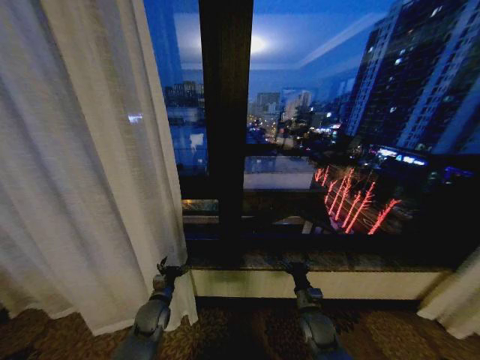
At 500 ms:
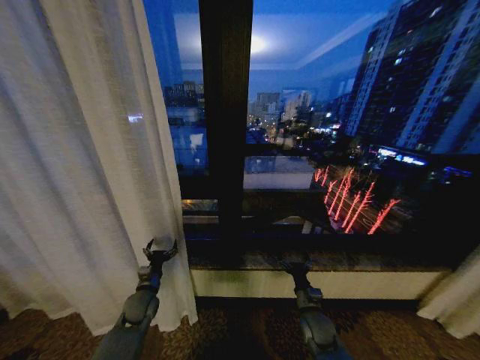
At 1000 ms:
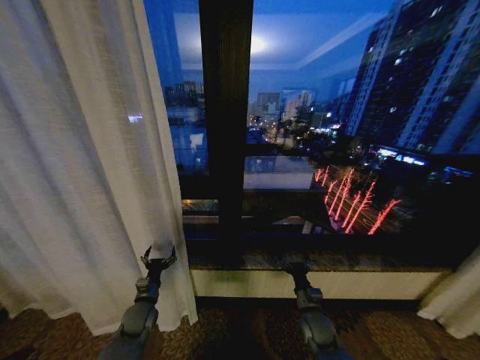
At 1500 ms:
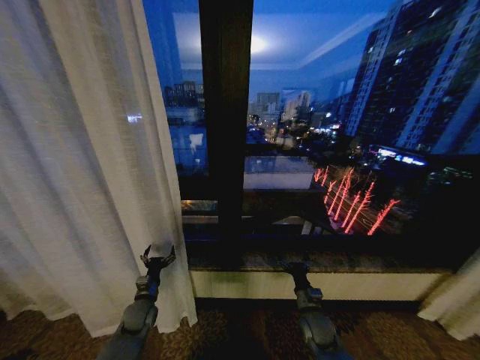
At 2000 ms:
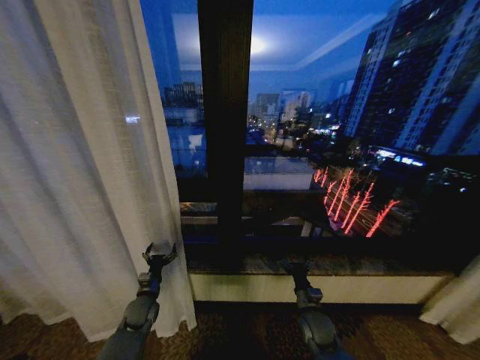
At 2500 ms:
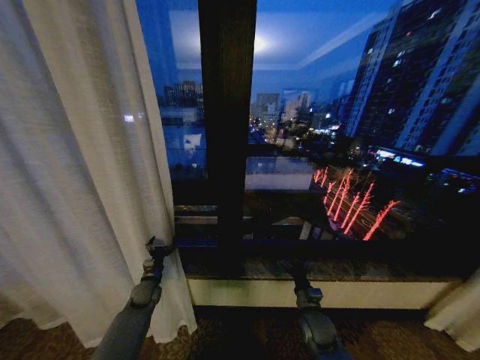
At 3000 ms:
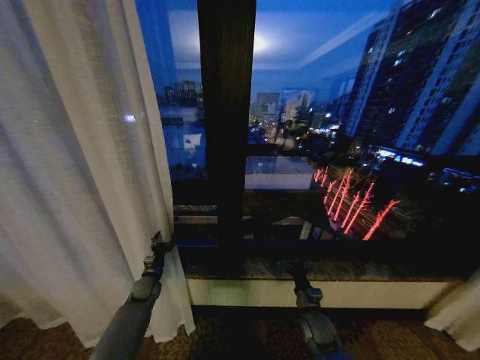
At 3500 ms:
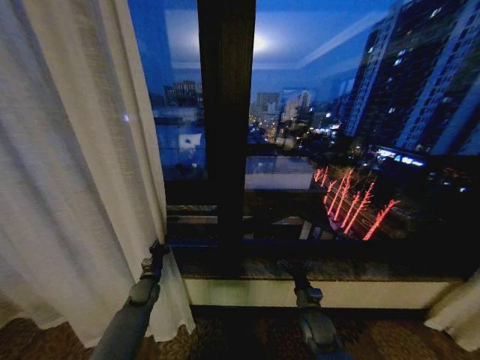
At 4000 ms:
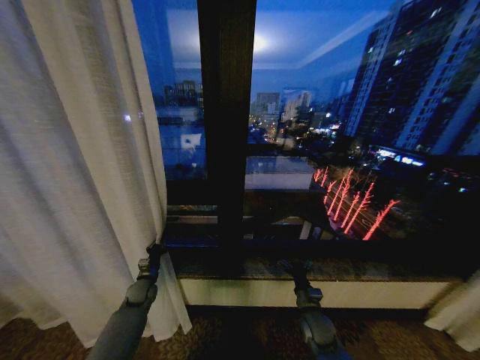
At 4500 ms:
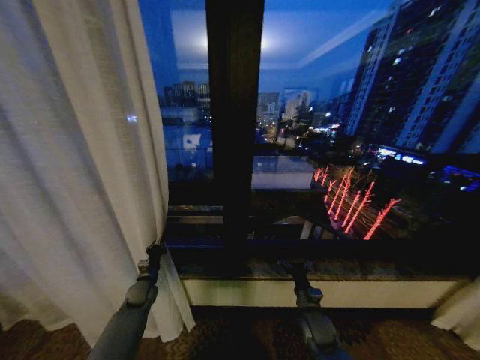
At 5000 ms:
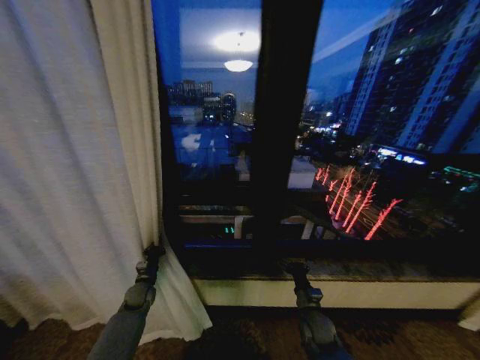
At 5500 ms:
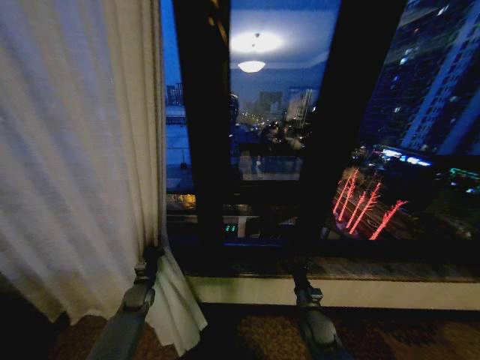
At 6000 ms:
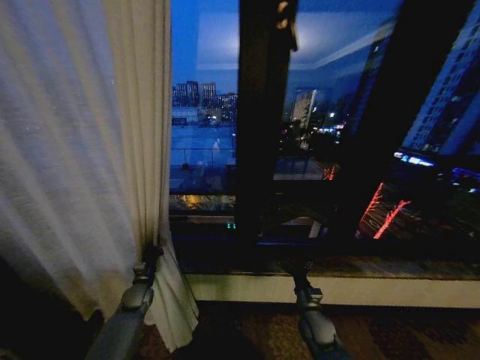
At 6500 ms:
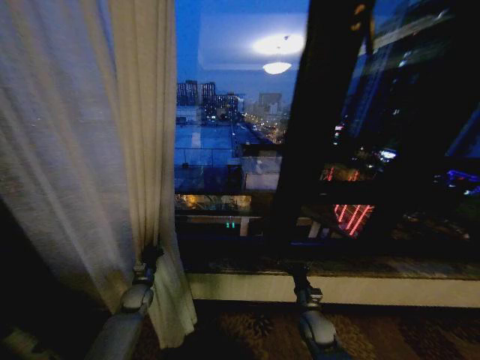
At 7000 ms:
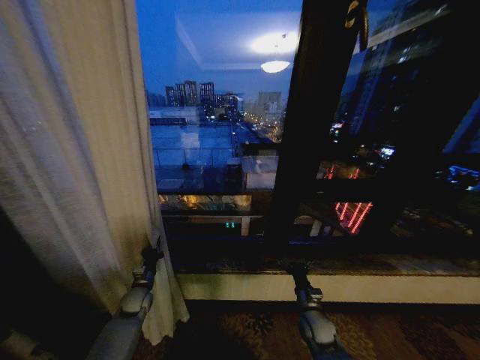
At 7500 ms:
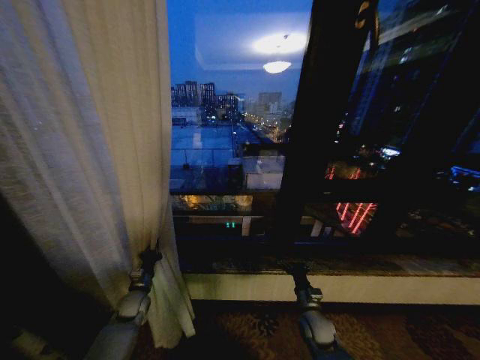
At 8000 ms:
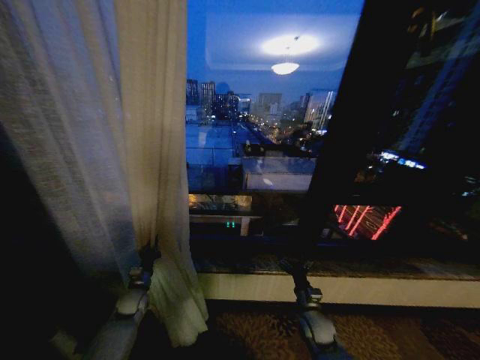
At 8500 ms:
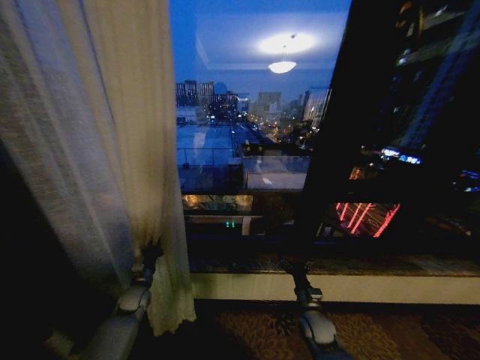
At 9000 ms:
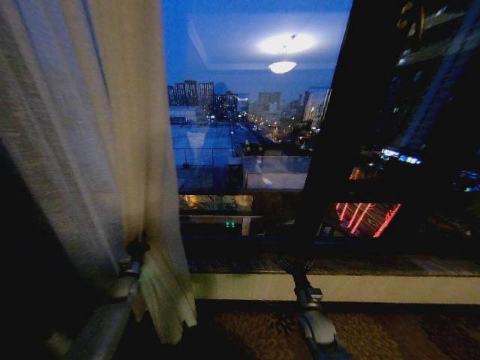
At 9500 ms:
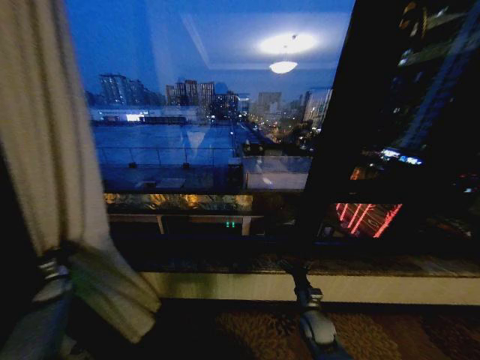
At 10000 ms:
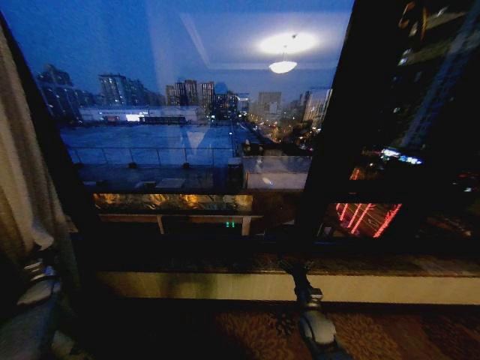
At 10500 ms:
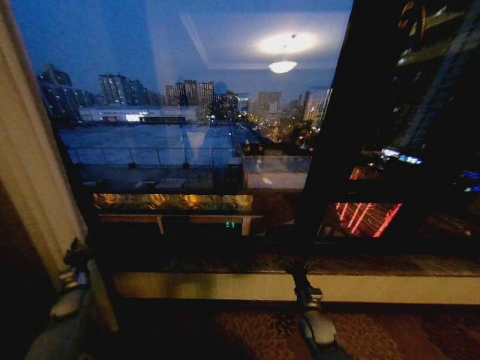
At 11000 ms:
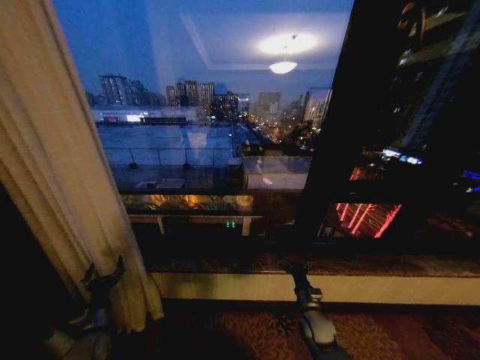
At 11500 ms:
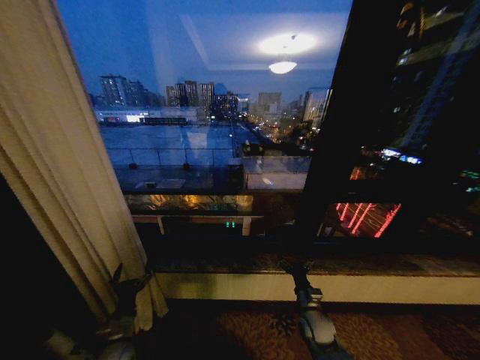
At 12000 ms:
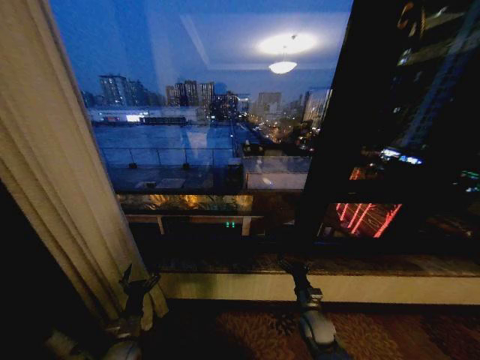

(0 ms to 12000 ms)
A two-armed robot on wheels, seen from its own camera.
Task of the whole recording: Open the curtains by pulling them apart, changing their state from closed to fully open.
0 ms - 2000 ms: There are only small adjustments of the grippers.
2000 ms - 4000 ms: The left gripper shifts about 5 cm forward, and closes its fingers.
8000 ms - 10000 ms: The left gripper moves to the left, some 30 cm.
10000 ms - 12000 ms: The left gripper heads to the right and backward, covering roughly 35 cm, and opens.

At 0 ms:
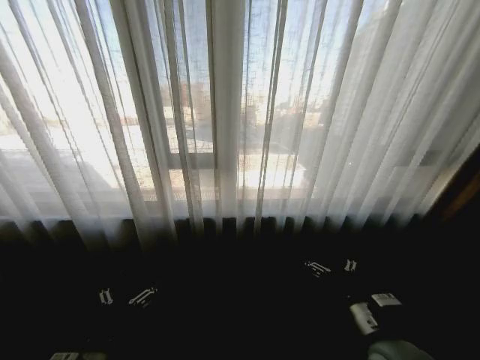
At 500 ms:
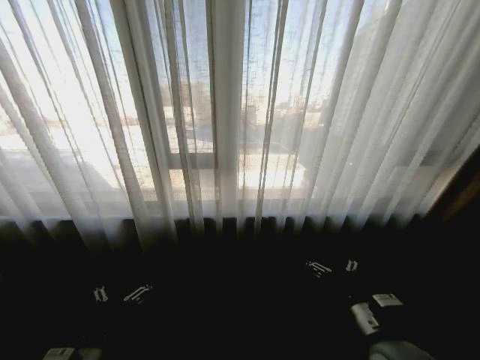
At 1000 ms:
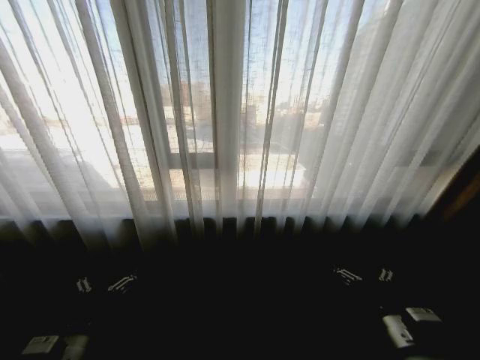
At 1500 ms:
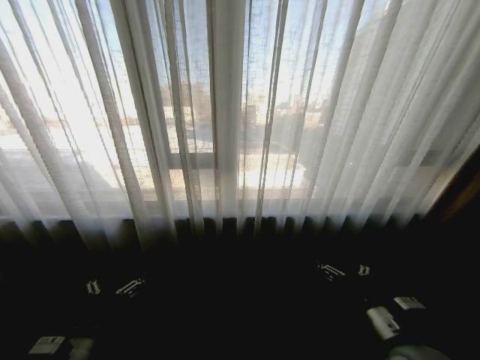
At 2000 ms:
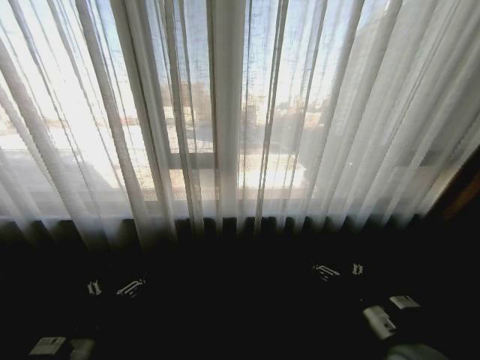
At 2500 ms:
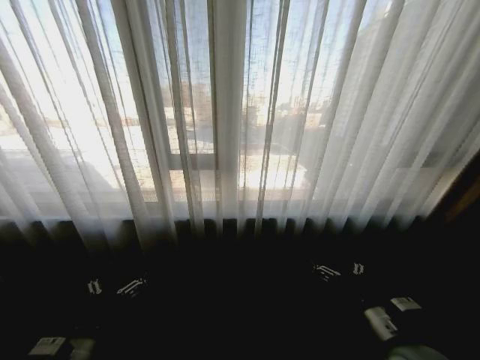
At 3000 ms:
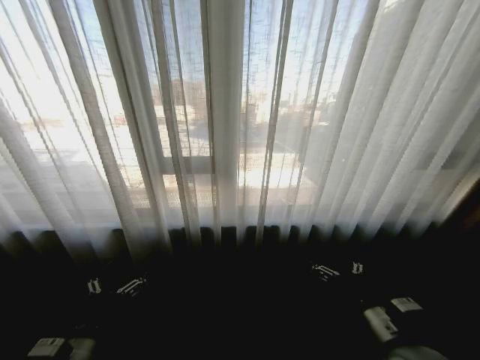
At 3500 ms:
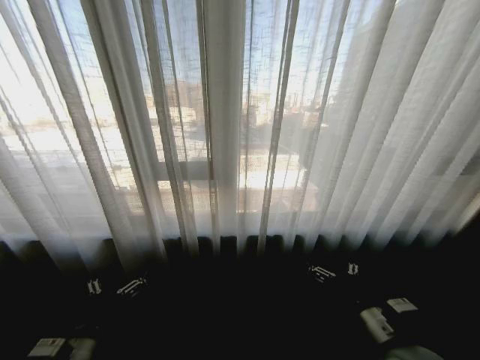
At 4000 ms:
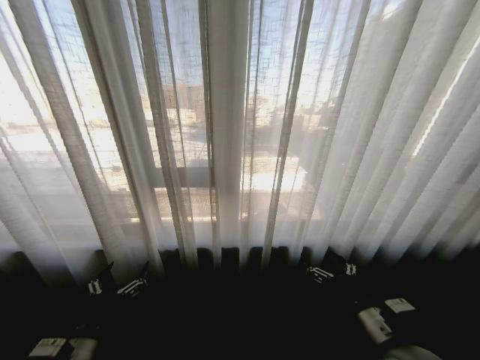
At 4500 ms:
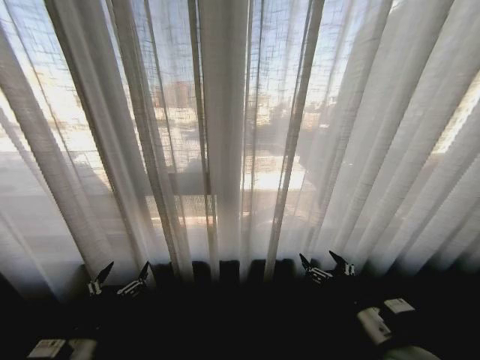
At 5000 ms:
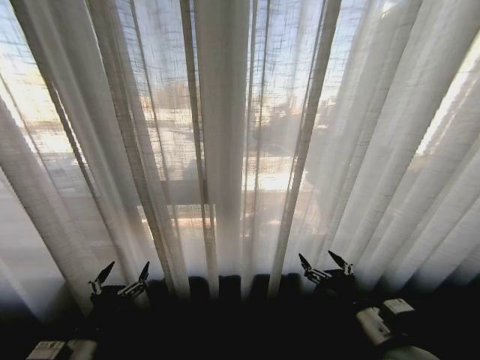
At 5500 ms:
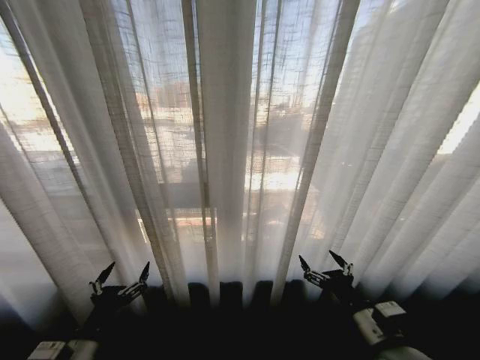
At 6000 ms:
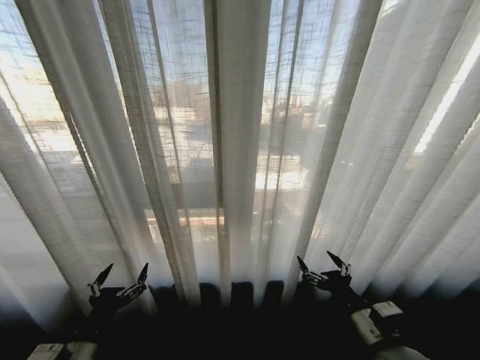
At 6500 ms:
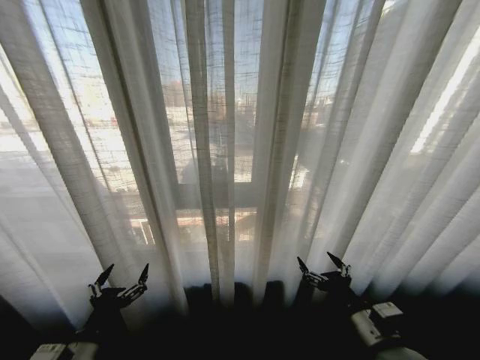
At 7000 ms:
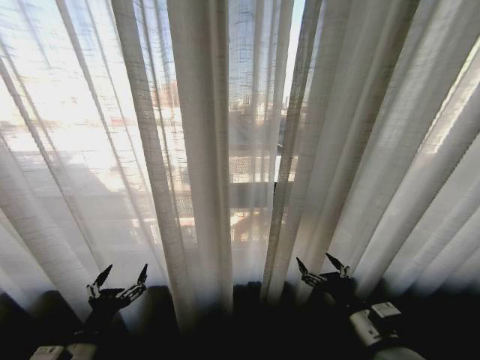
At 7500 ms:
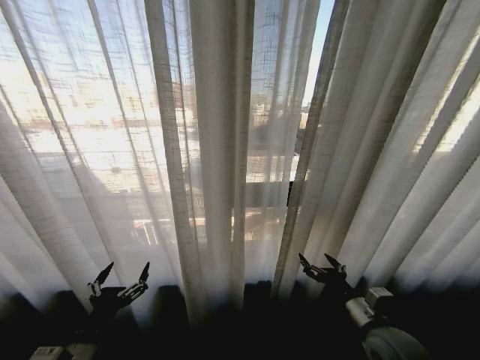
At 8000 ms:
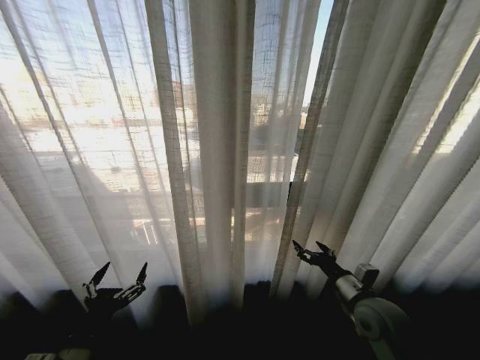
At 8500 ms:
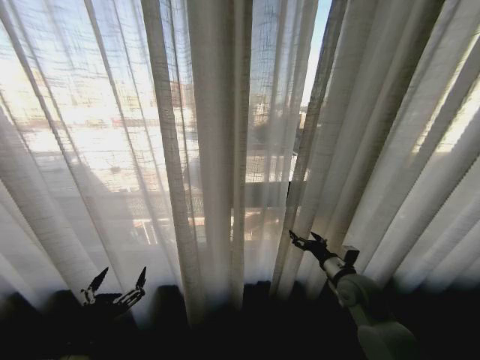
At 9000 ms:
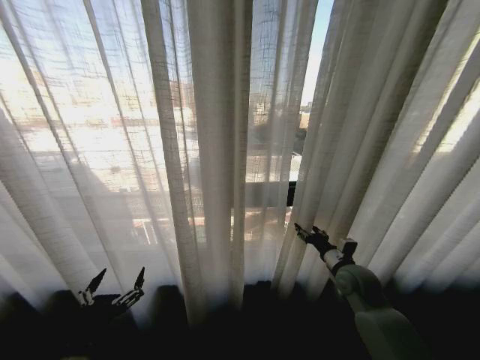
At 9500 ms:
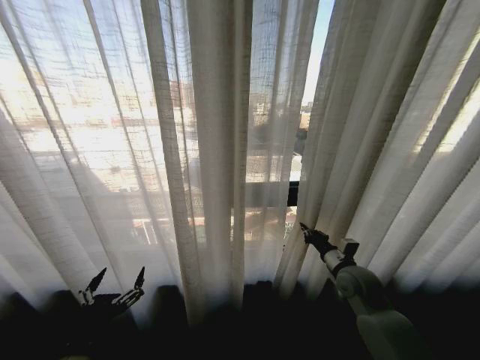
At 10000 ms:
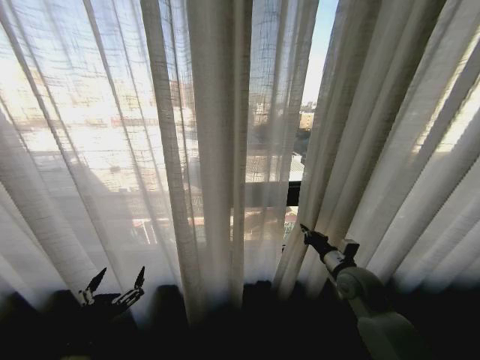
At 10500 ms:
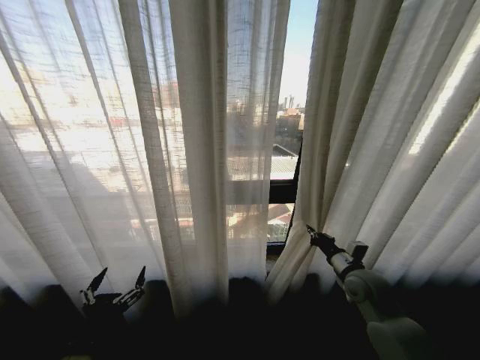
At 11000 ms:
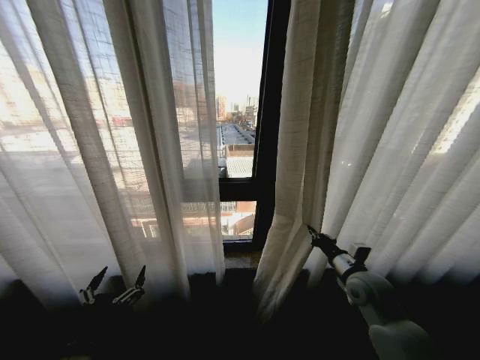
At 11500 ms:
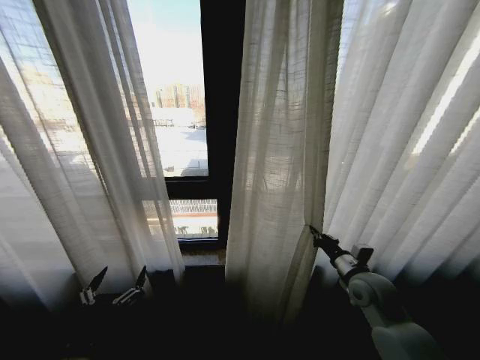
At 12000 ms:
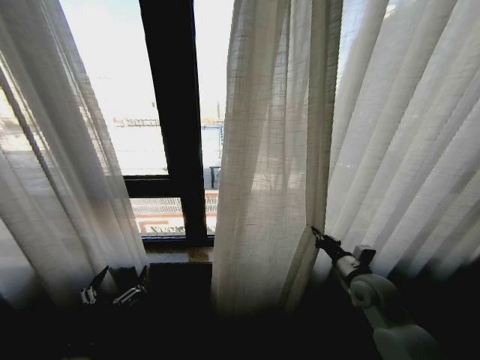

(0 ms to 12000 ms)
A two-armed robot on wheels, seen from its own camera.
Task of the whole recording: Open the curtains by pulling them apart, changing their state from closed to fully open.
6000 ms - 8000 ms: The right gripper is displaced forward by some 10 cm.
8000 ms - 10000 ms: The right gripper is displaced forward by roughly 10 cm, and closes up.

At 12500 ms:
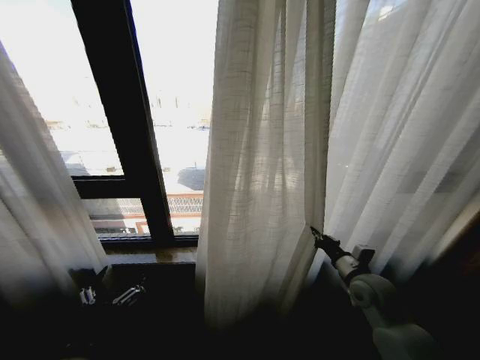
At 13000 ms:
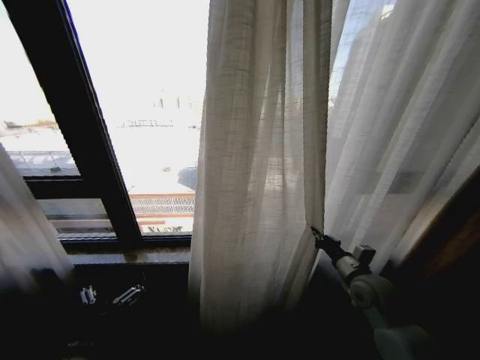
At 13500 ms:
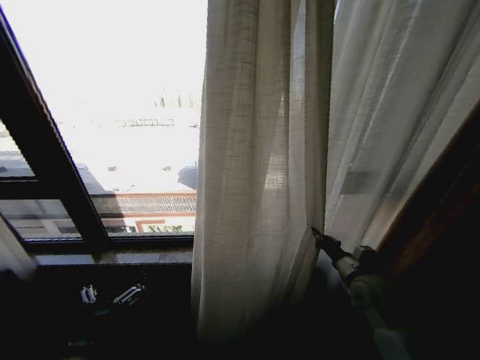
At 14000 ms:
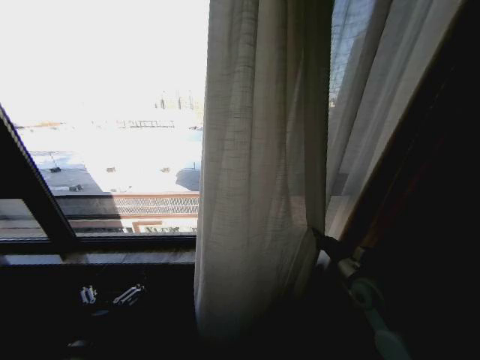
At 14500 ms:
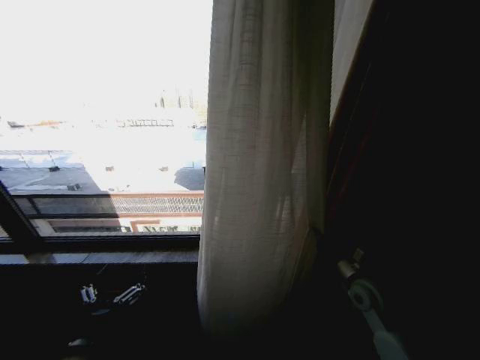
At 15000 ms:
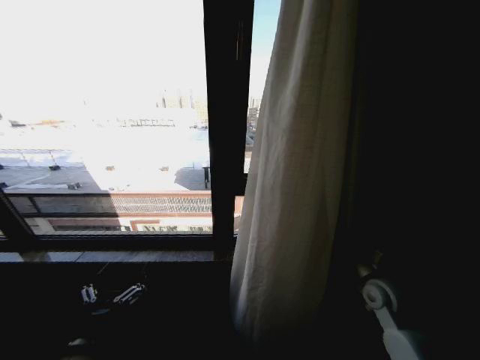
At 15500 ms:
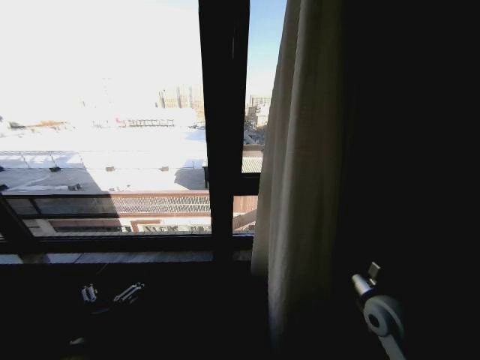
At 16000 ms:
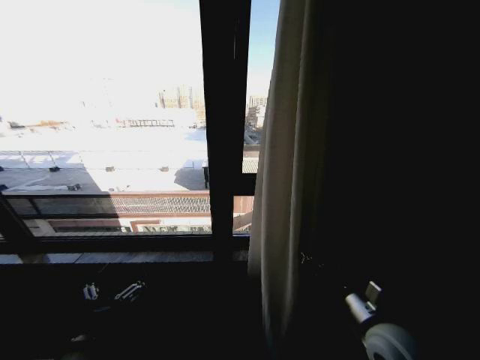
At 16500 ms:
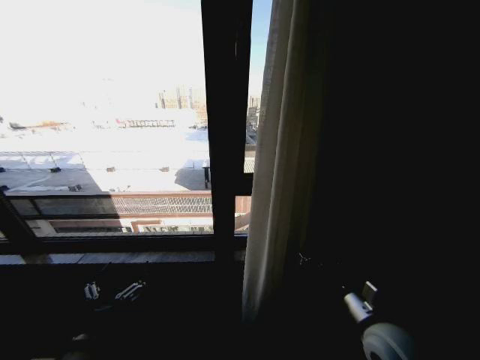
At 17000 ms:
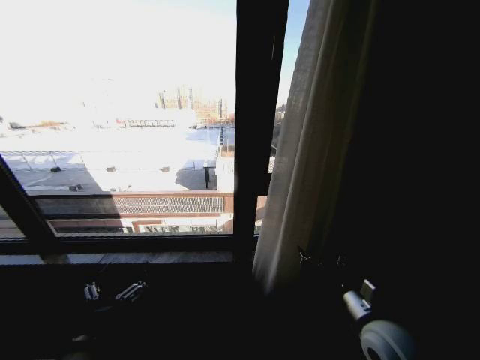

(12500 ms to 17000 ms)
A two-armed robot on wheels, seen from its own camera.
Task of the whole recording: Open the curtains by pulling them apart, changing their state from closed to fully open.
14500 ms - 17000 ms: The right gripper travels backward and to the left by roughly 15 cm, and opens.
